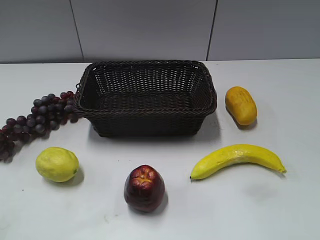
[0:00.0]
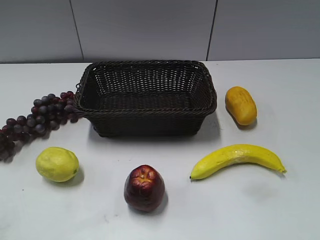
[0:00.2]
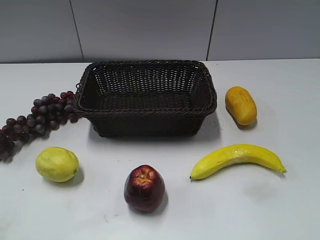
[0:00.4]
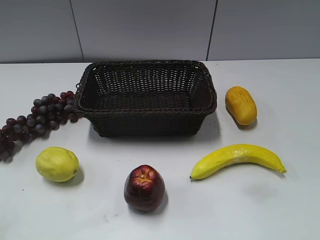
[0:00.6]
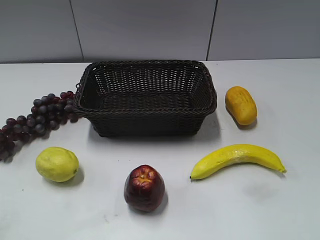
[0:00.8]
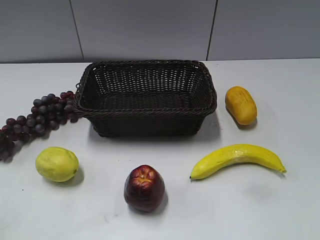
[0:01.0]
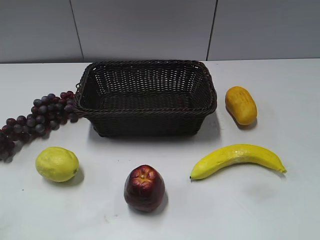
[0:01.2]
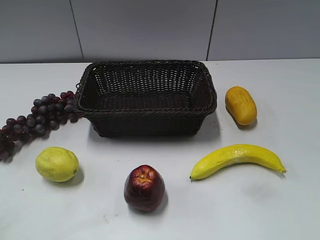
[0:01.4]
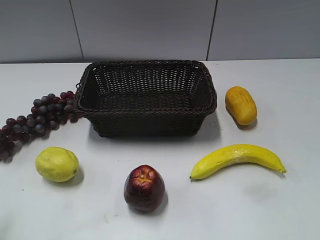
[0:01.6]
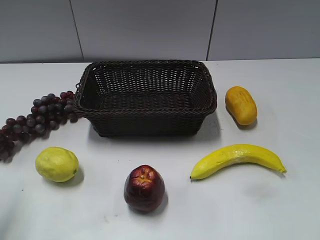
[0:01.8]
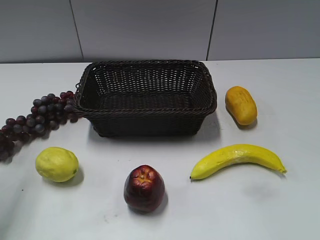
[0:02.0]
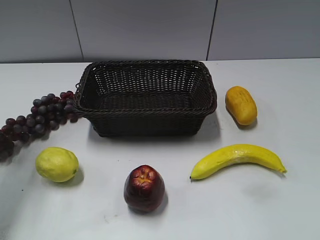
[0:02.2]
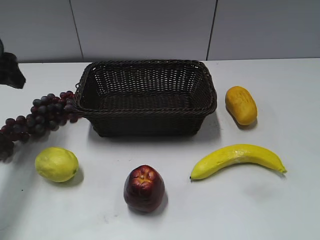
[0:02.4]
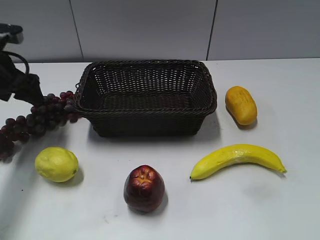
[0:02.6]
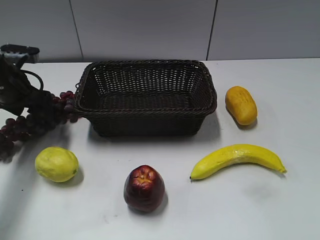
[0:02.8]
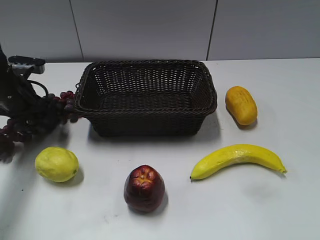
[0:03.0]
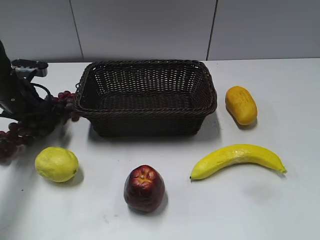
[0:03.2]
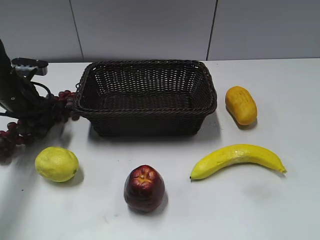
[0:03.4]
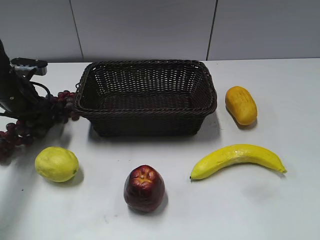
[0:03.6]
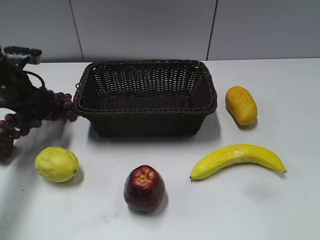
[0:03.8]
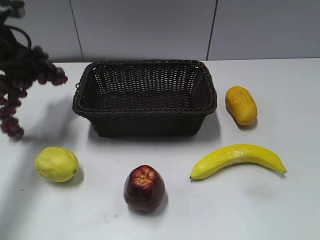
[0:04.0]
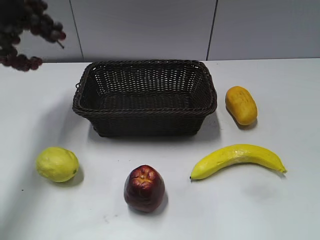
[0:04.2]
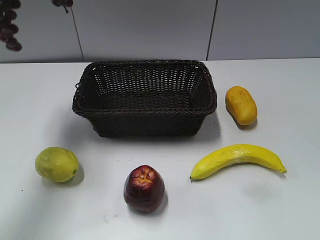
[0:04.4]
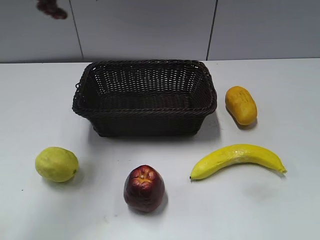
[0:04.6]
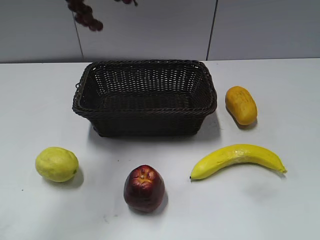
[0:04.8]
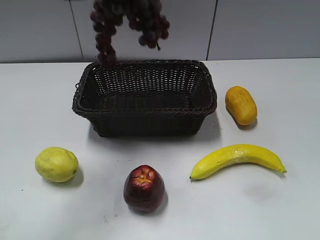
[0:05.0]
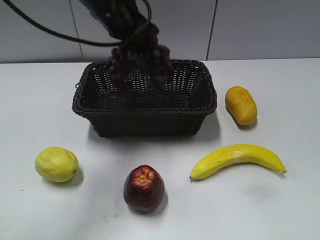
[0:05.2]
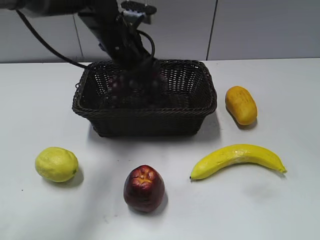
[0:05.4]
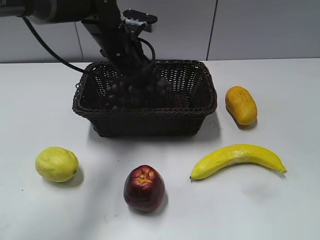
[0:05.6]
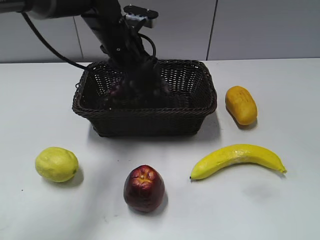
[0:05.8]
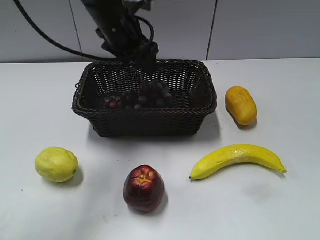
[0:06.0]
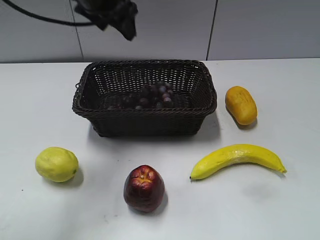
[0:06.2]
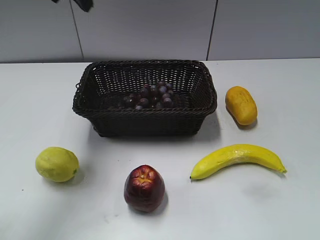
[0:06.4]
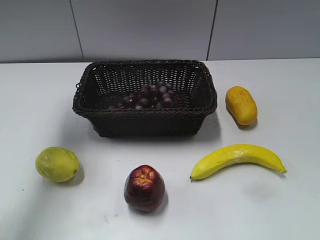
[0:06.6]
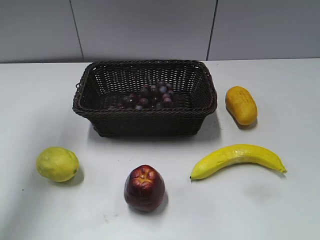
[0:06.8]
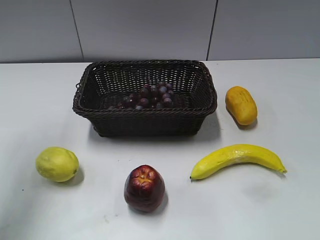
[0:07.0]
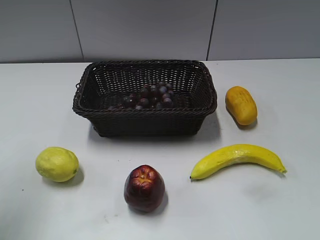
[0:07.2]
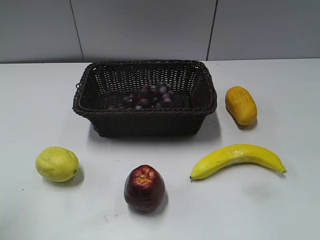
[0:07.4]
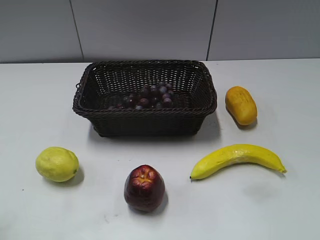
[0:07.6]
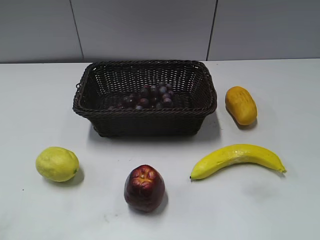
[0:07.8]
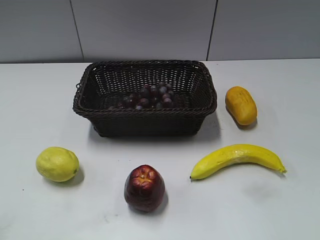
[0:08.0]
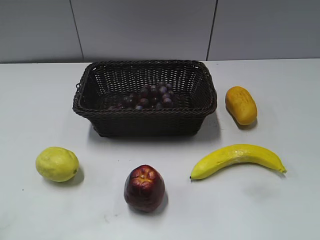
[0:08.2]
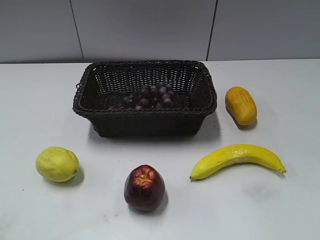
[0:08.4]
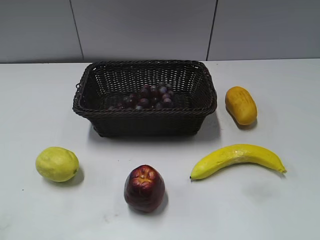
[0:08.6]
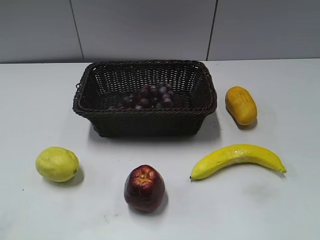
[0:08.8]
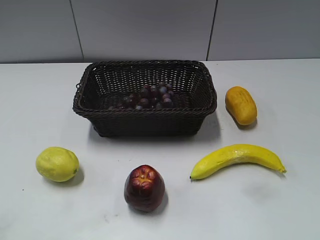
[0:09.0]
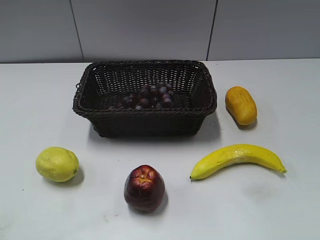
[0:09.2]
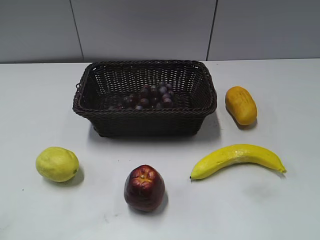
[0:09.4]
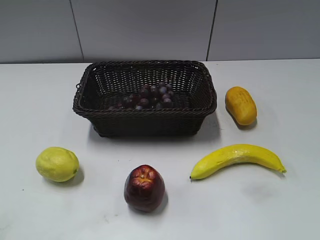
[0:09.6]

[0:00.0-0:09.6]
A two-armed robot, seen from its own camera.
Step, 0:02.4 to 0:03.2: Grasp the grape with left gripper.
Step, 0:03.4 to 0:05.8: Place the grape in the basket with left gripper.
0:01.6 to 0:03.2: The left gripper moves forward and downward, approximately 35 cm.
0:03.2 to 0:04.8: The left gripper moves upward and to the right, approximately 30 cm, and closes its fingers.
0:04.8 to 0:06.4: The left gripper moves roughly 20 cm downward and comes back, and opens its fingers.
0:06.4 to 0:08.0: The left gripper heads backward, covering about 40 cm.

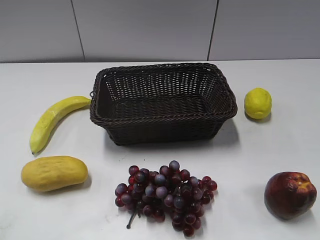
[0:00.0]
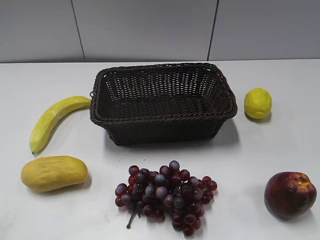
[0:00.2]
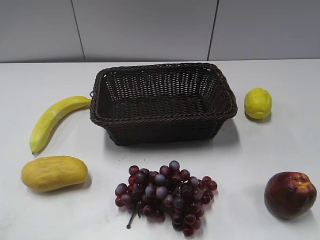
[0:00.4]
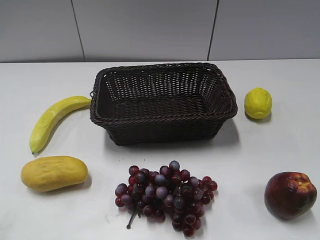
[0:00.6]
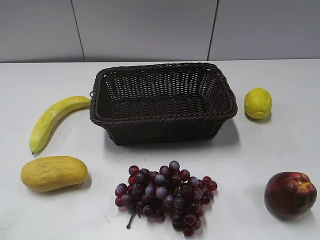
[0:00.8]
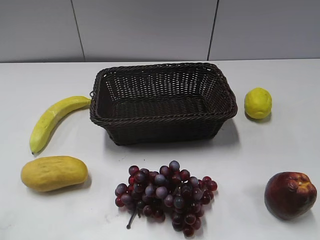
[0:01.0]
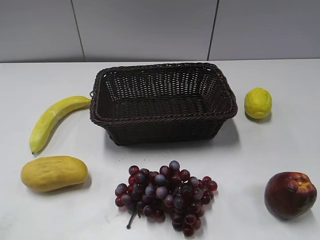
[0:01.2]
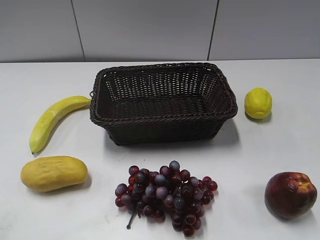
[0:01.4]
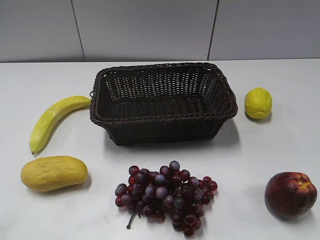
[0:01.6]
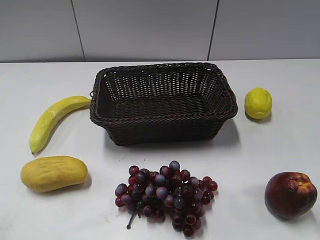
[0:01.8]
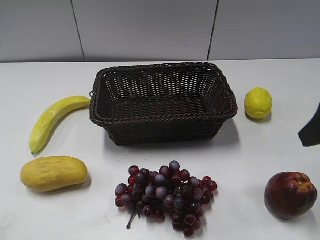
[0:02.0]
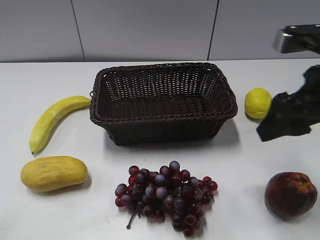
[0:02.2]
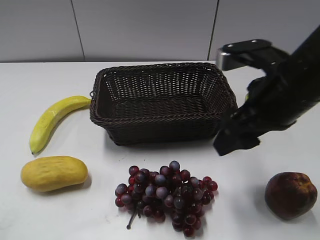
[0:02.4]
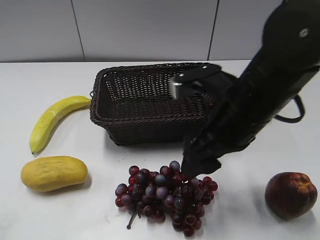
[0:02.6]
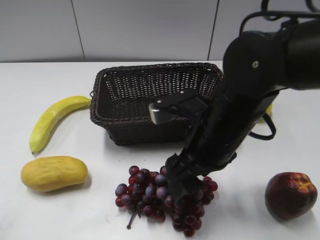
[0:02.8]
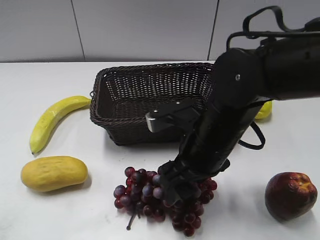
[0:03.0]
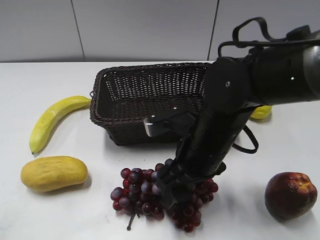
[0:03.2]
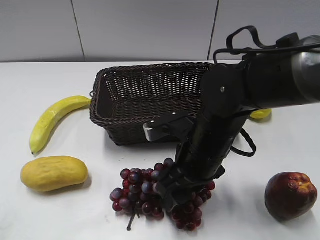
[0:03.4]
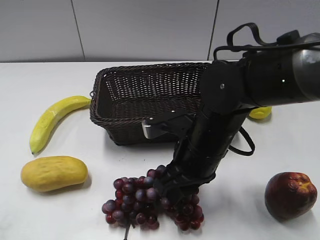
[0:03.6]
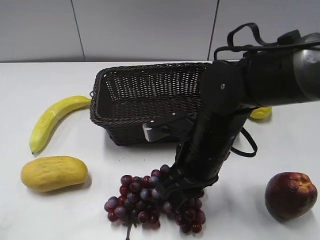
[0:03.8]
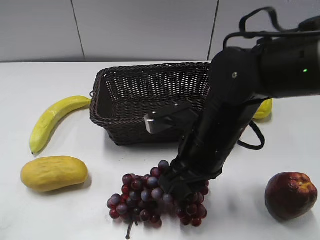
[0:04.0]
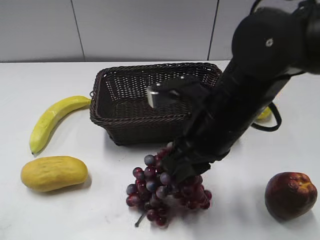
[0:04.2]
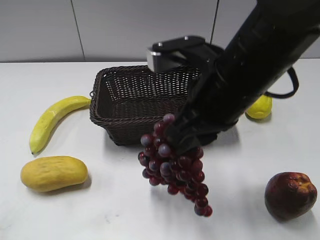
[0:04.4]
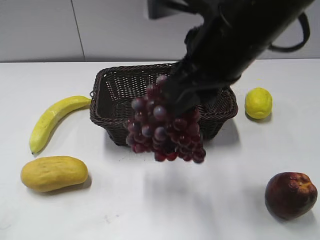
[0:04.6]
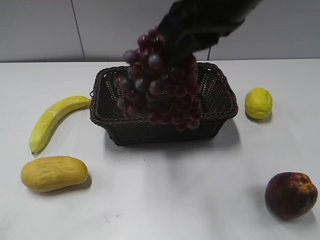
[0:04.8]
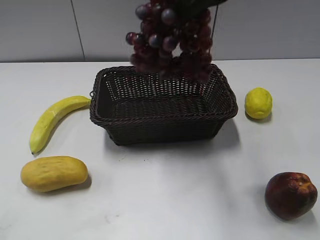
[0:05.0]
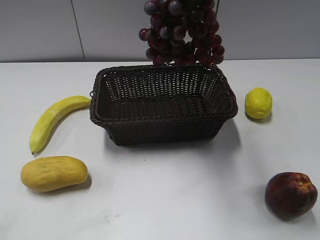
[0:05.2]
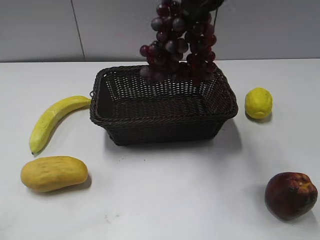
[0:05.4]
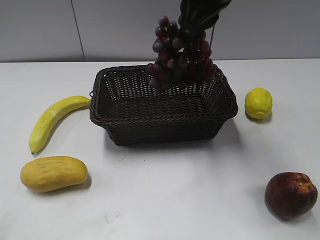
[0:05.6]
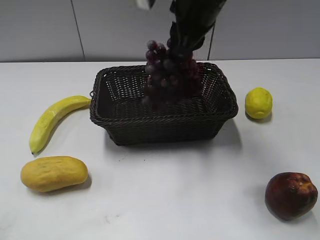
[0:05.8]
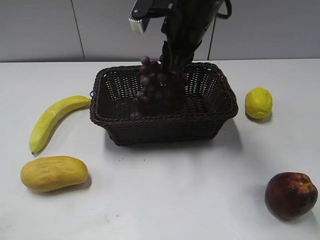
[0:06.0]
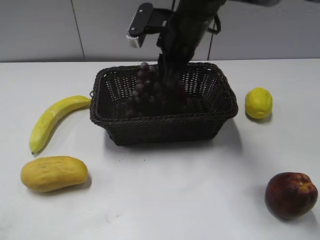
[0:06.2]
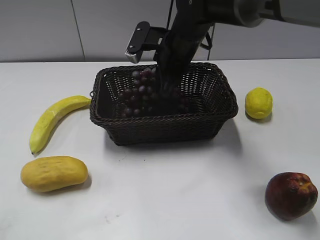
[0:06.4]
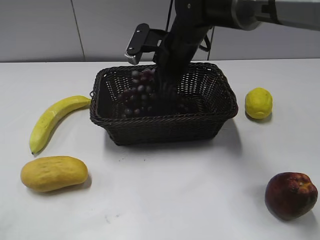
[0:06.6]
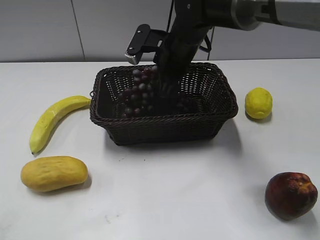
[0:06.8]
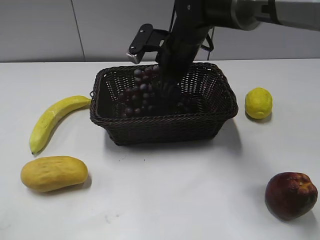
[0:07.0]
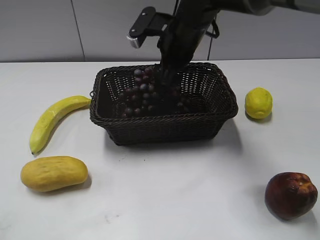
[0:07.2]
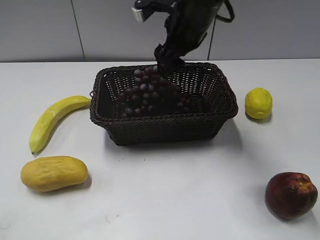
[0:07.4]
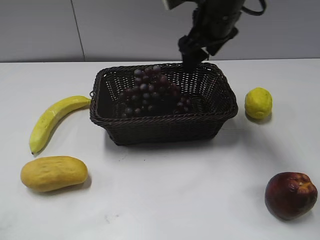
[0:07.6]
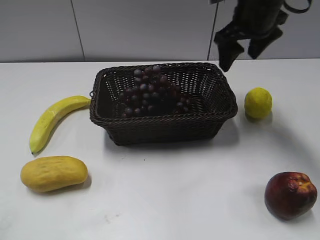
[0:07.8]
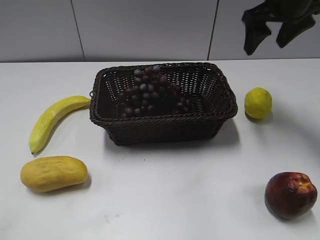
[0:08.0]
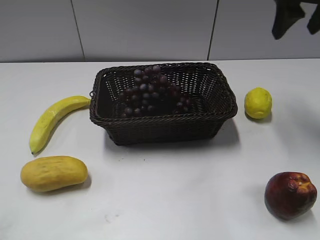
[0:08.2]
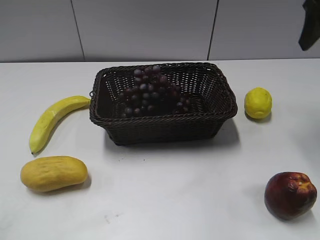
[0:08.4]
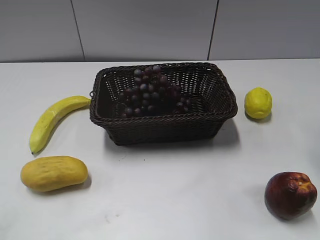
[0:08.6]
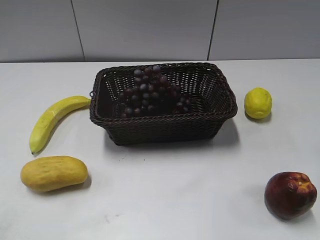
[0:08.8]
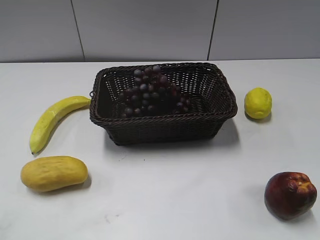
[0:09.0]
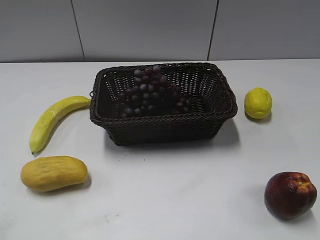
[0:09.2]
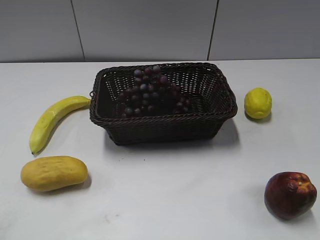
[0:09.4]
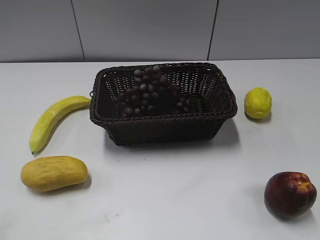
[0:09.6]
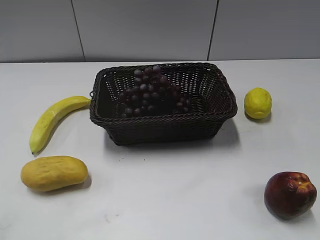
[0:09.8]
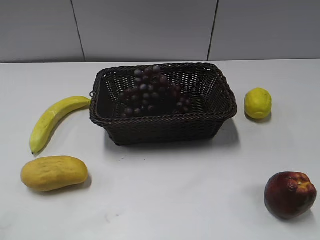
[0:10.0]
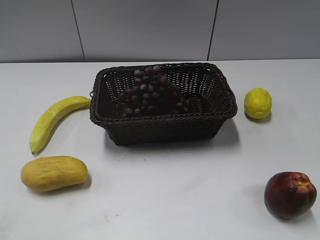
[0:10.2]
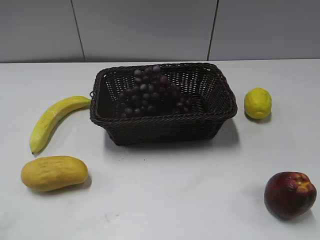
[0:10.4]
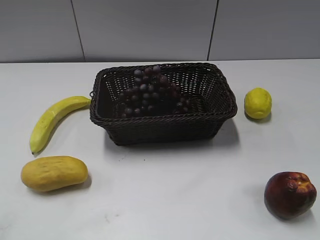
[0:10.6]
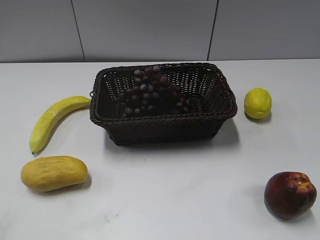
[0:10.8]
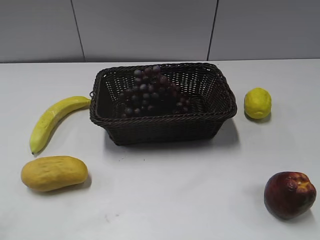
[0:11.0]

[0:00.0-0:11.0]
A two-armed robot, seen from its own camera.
Step, 0:01.8 to 0:03.6: Grasp the grape with right gripper.
Step, 0:03.8 to 0:06.8: Place the grape in the basket with right gripper.
0:01.6 to 0:03.2: The right gripper goes about 25 cm to the left and downward.
0:03.2 to 0:04.8: The right gripper shifts some 25 cm upward, and closes up.
0:04.8 to 0:06.2: The right gripper moves forward and downward, some 20 cm.
0:06.2 to 0:07.8: The right gripper shifts some 15 cm to the right and upward, and opens up.
0:07.8 to 0:09.4: The right gripper travels backward and to the right by approximately 30 cm.
